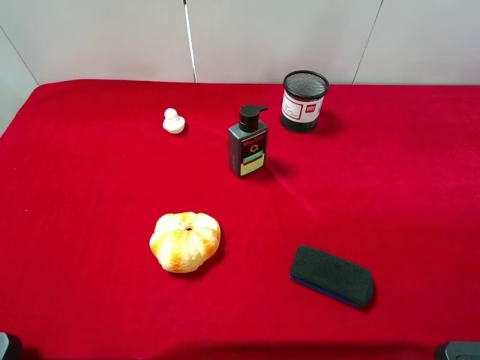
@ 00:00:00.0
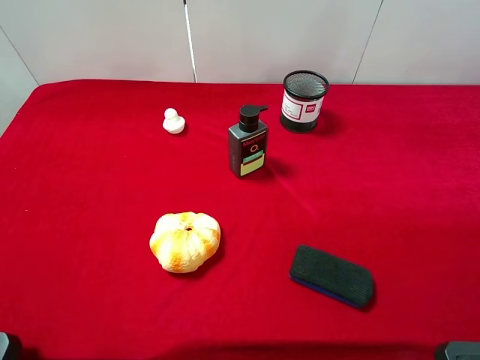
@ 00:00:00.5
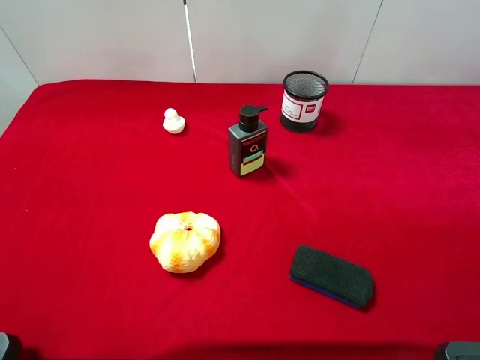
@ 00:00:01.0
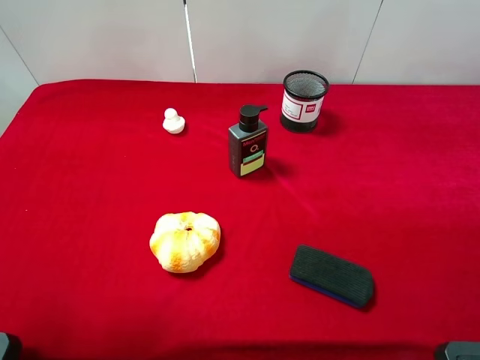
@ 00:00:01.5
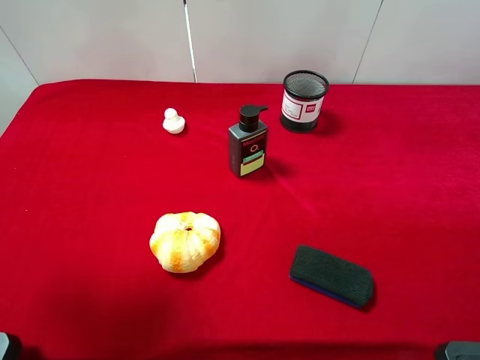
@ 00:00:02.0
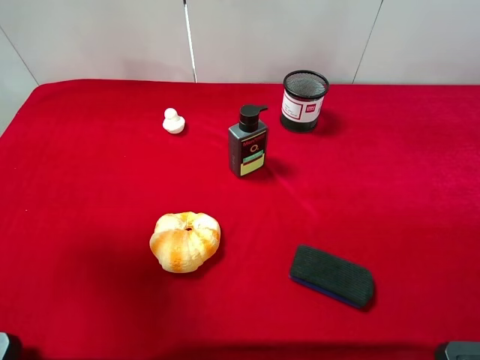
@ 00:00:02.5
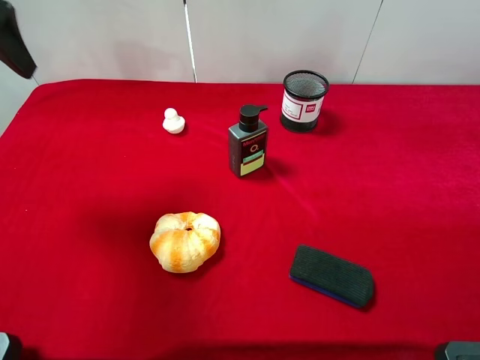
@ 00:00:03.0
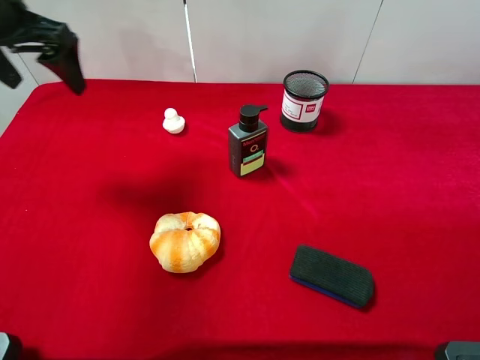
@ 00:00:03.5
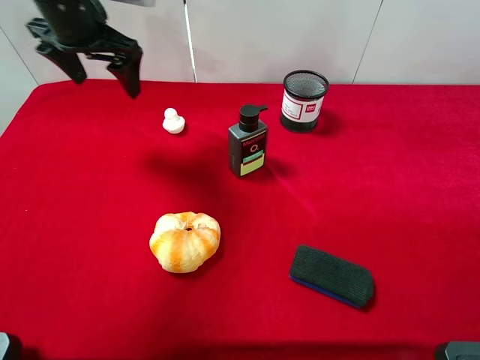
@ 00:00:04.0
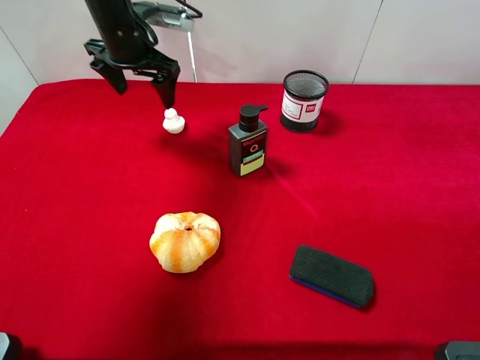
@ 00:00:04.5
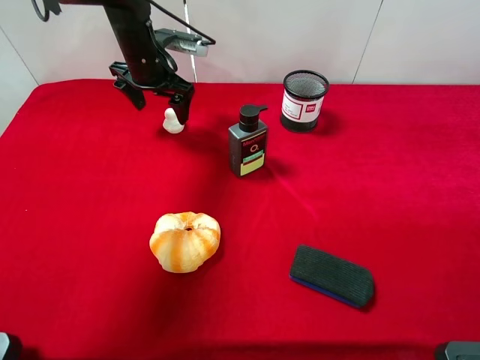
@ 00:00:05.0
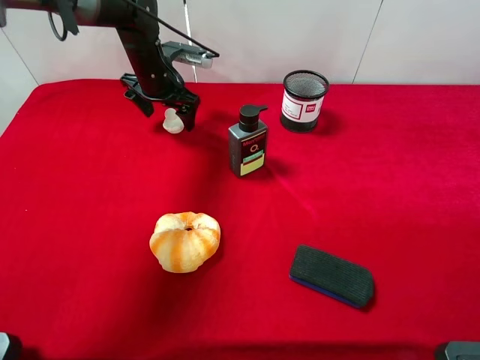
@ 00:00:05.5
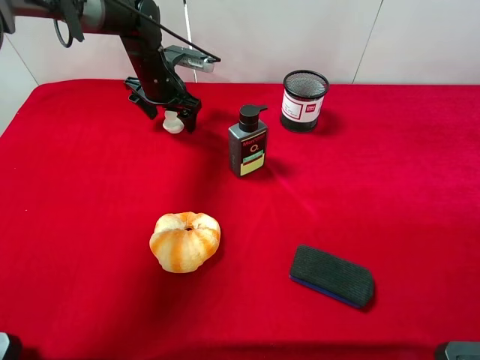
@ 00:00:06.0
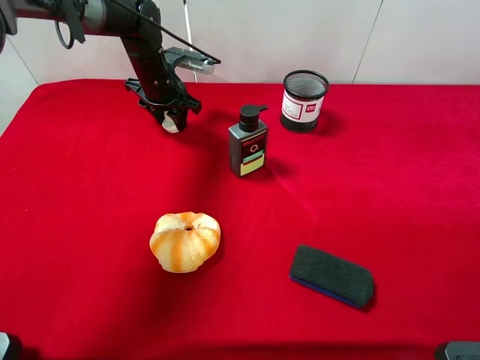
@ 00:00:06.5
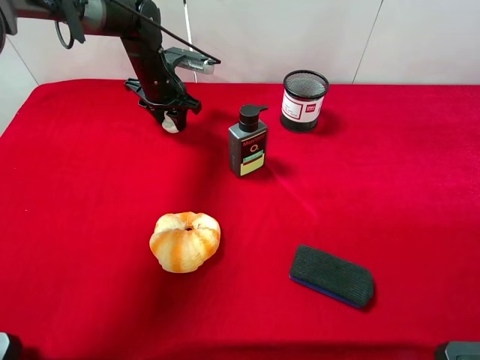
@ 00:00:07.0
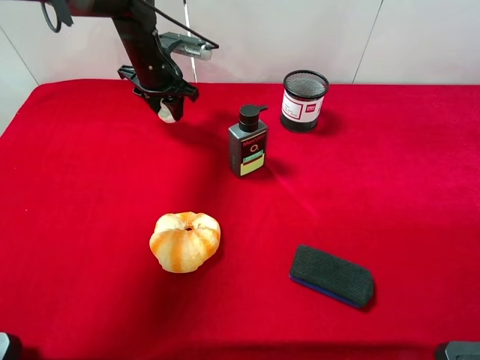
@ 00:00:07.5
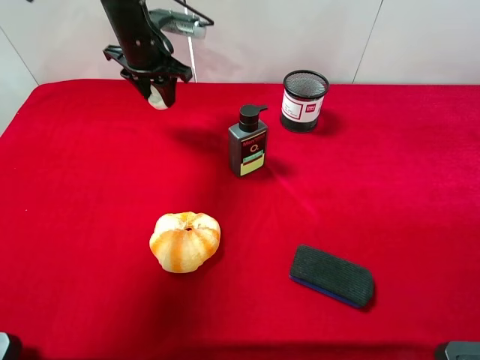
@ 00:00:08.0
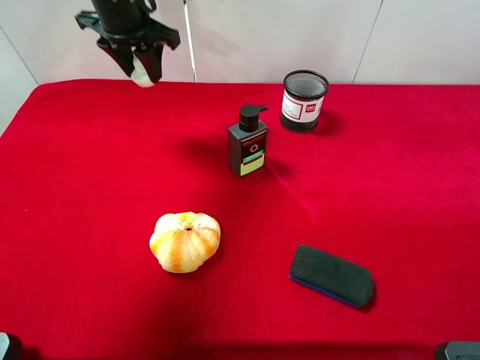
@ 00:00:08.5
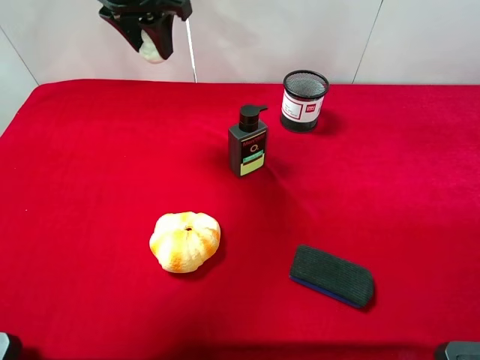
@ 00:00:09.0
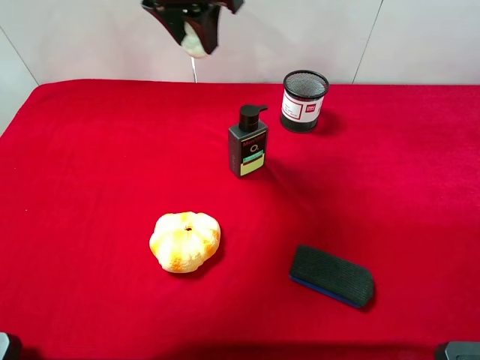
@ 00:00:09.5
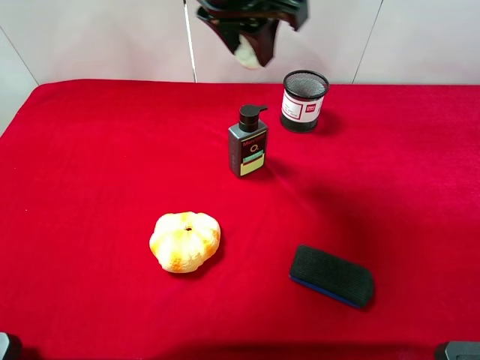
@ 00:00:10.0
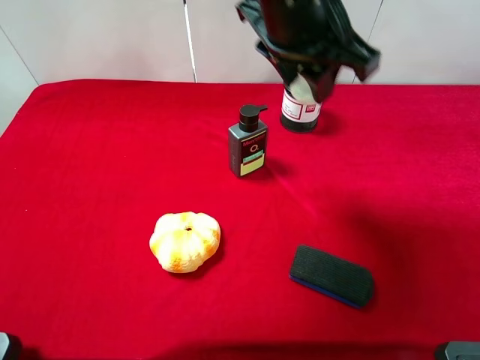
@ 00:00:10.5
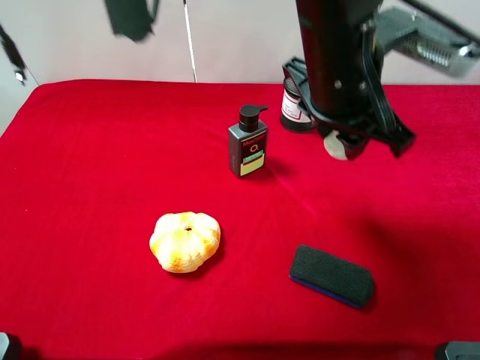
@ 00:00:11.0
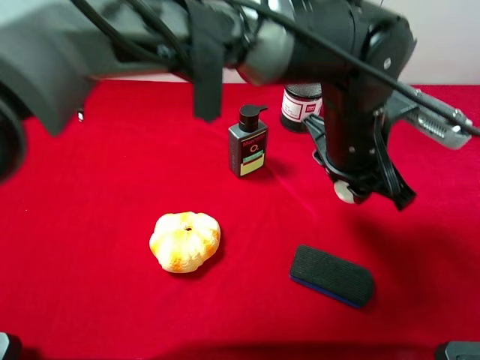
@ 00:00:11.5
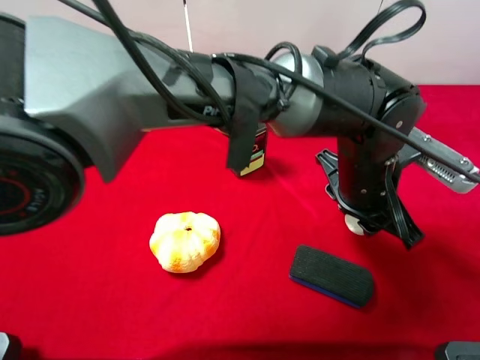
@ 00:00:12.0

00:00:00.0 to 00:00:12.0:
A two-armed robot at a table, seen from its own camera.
Task of the whole recording: the gripper move the object.
Step, 00:00:00.0 to 00:00:06.5: Grasp the white duck with the left gripper.
00:00:00.0 to 00:00:02.0: The left gripper goes roughly 15 cm forward and upward.
00:00:02.0 to 00:00:04.0: The left gripper heads forward, to the right and downward, covering some 30 cm.
00:00:04.0 to 00:00:06.0: The left gripper heads downward and forward, covering some 15 cm.
00:00:06.0 to 00:00:08.0: The left gripper shifts roughly 10 cm upward, and closes.
00:00:08.0 to 00:00:10.0: The left gripper travels to the right, upward and backward by roughly 25 cm.
00:00:10.0 to 00:00:12.0: The left gripper is displaced downward, to the right and backward by about 25 cm.

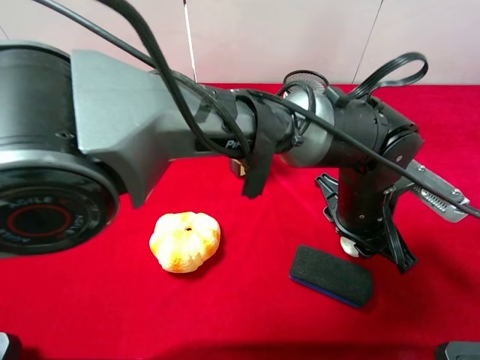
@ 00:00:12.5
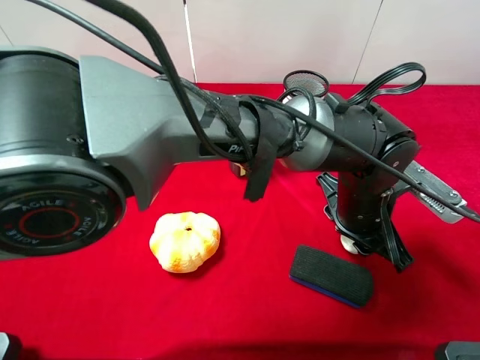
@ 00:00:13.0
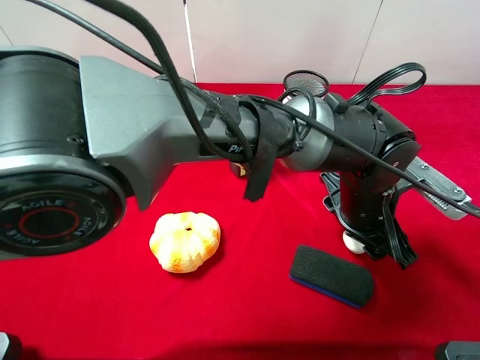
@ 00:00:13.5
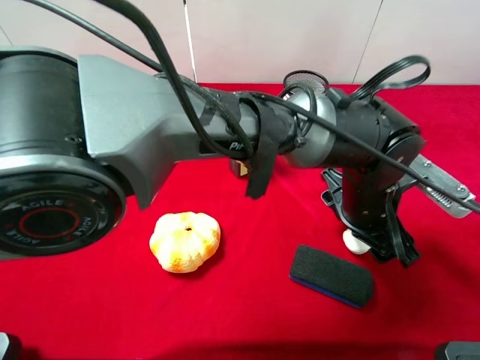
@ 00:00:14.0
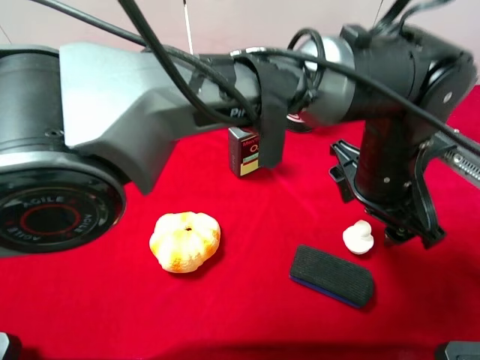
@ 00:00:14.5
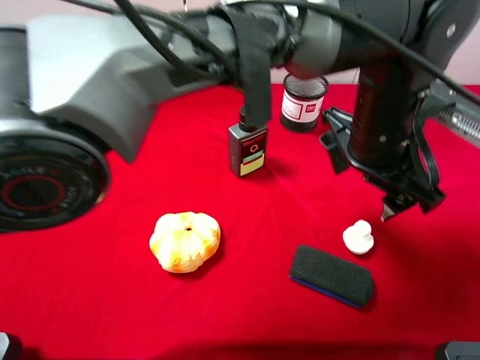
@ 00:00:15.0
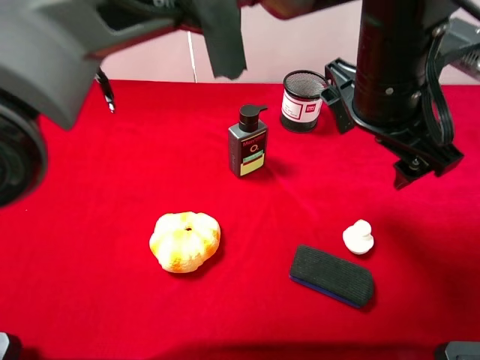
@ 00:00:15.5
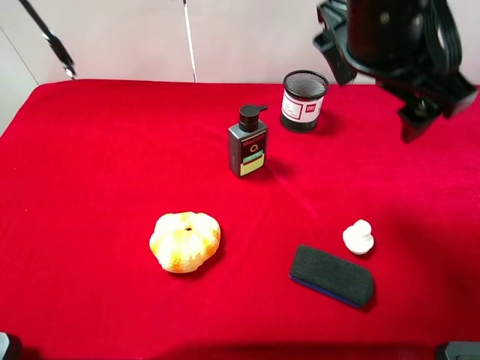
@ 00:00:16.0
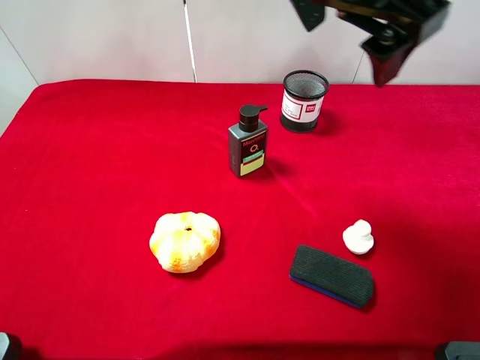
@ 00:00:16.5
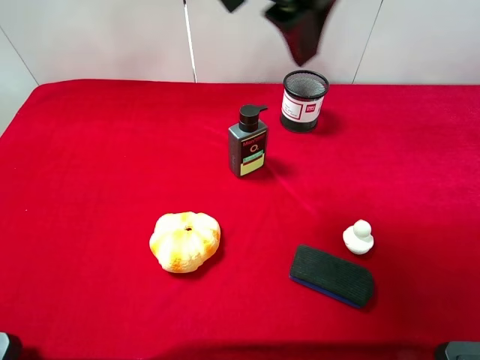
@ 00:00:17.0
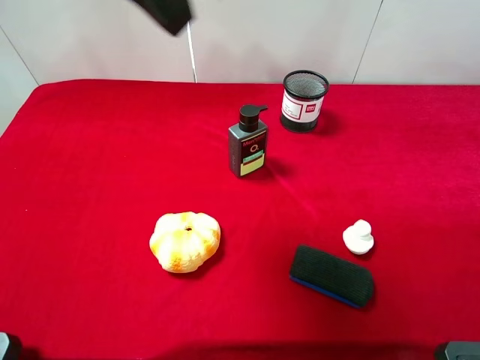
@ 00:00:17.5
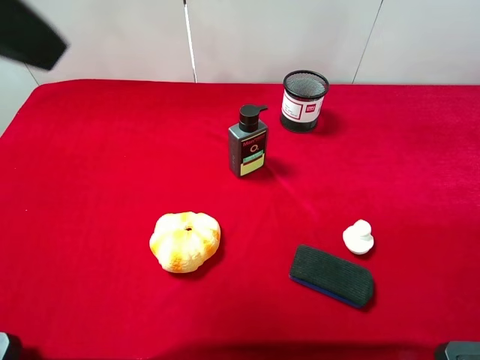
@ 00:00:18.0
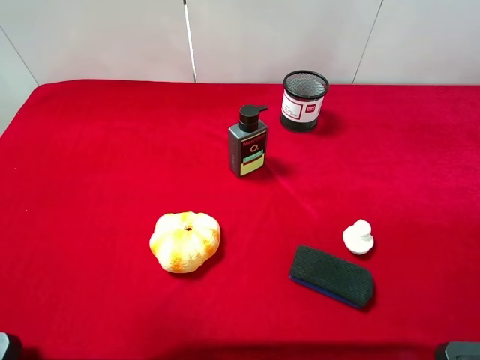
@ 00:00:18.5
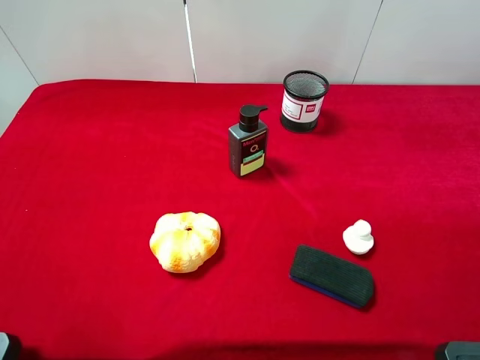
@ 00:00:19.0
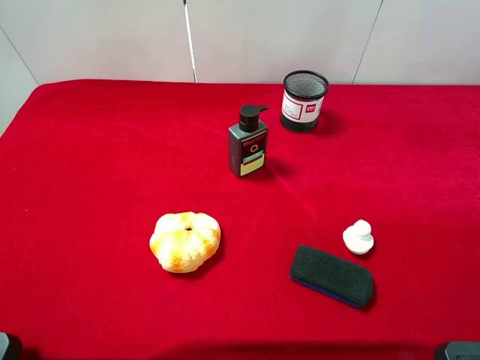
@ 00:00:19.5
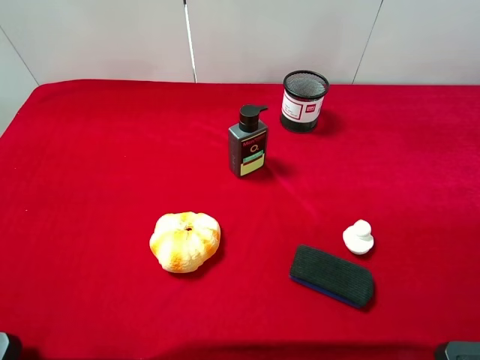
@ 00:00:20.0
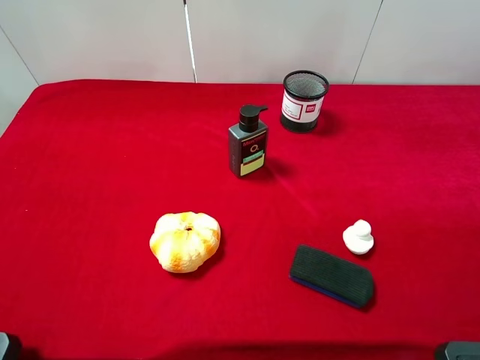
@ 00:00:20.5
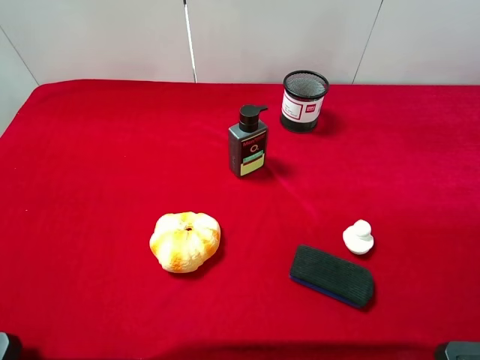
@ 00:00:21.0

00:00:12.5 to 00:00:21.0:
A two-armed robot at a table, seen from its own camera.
Task of the whole recording: the gripper move the object.
Step, 00:00:12.5 to 00:00:14.5: Place the white duck on the table with the left gripper.
00:00:12.5 to 00:00:14.5: The left gripper heads upward, covering approximately 5 cm, and opens.
00:00:14.5 to 00:00:16.5: The left gripper goes about 20 cm upward and to the left.
